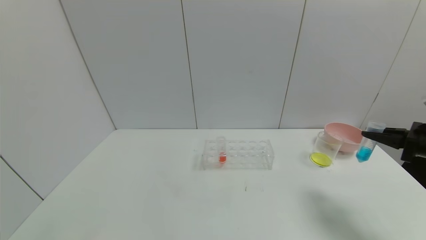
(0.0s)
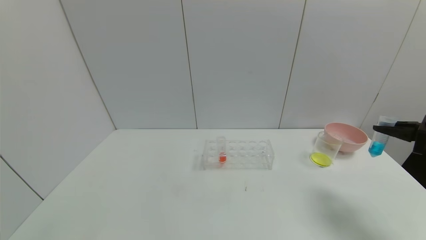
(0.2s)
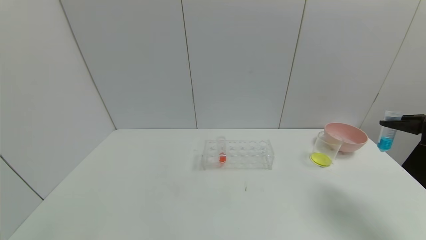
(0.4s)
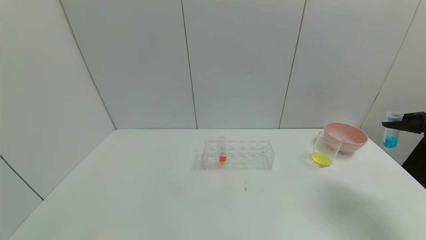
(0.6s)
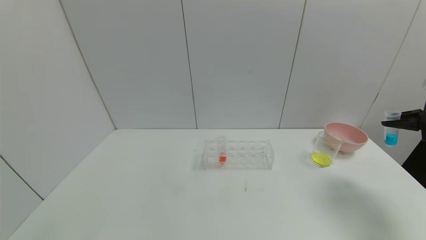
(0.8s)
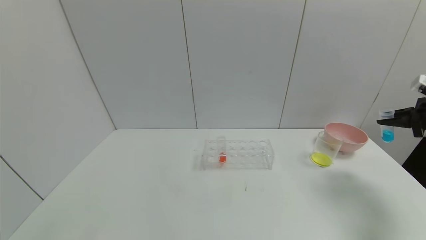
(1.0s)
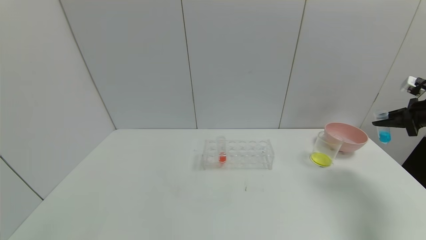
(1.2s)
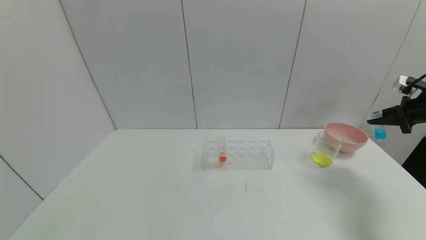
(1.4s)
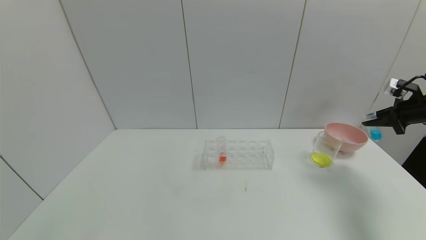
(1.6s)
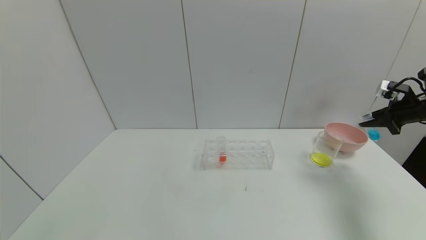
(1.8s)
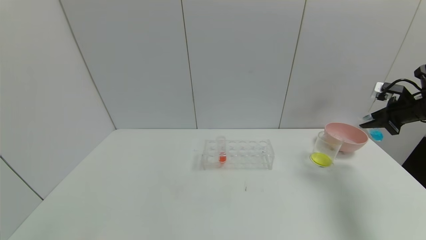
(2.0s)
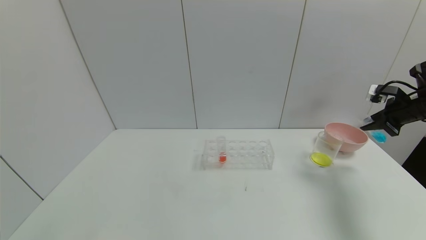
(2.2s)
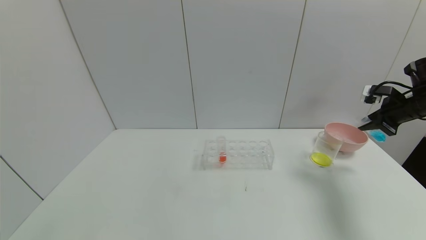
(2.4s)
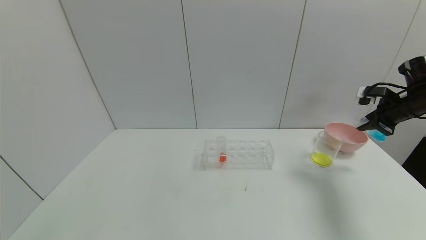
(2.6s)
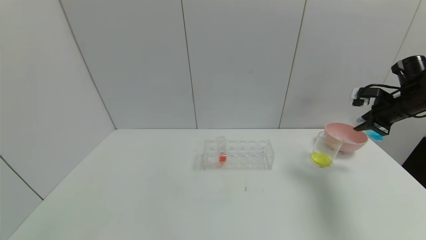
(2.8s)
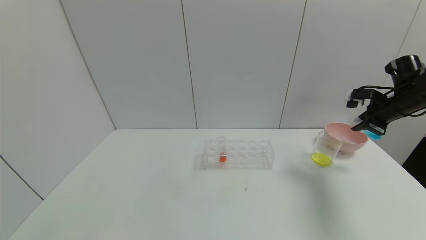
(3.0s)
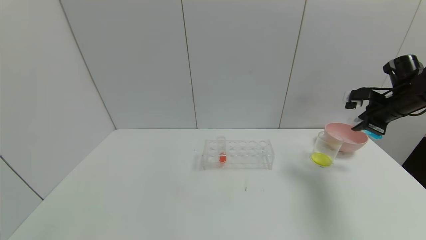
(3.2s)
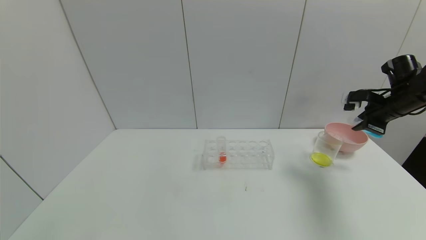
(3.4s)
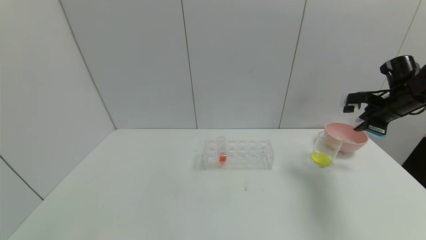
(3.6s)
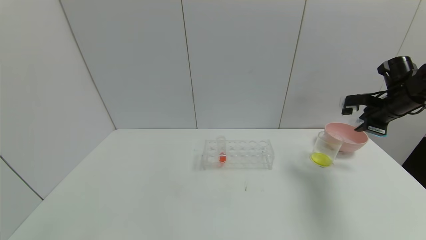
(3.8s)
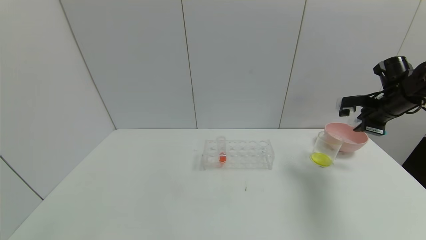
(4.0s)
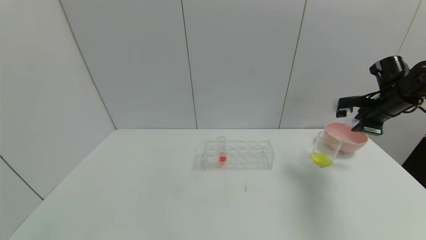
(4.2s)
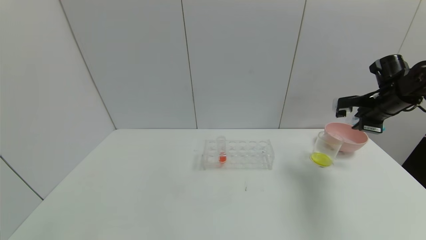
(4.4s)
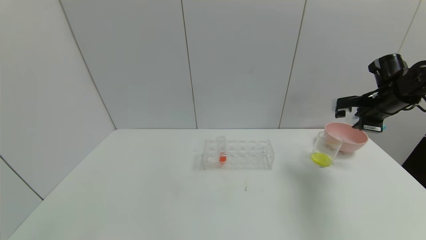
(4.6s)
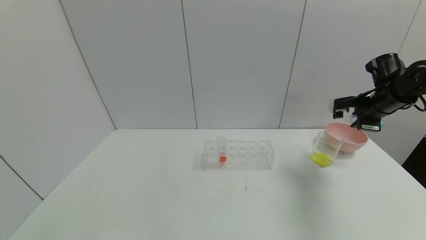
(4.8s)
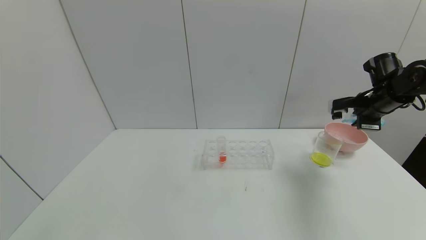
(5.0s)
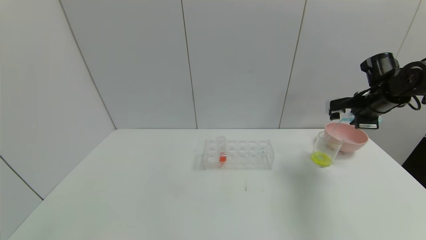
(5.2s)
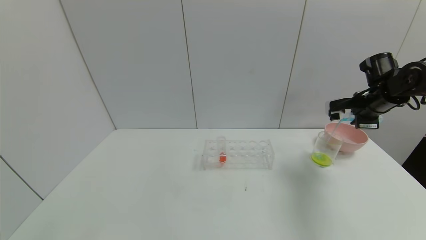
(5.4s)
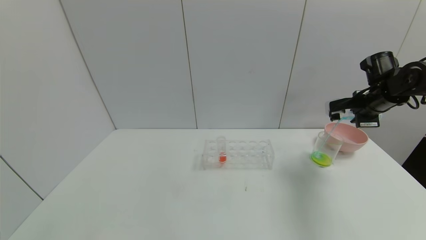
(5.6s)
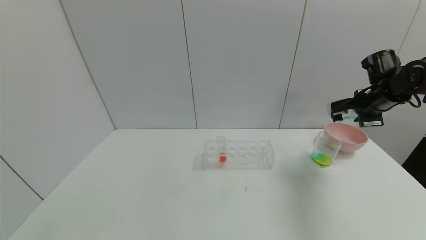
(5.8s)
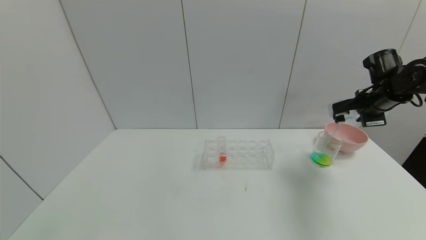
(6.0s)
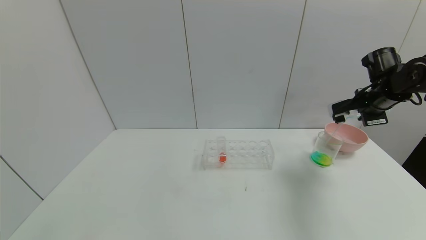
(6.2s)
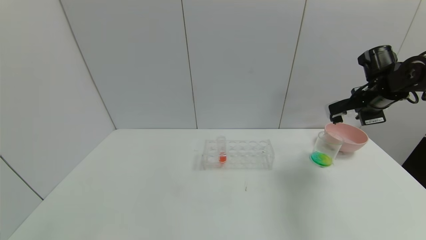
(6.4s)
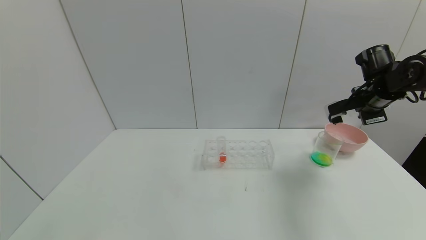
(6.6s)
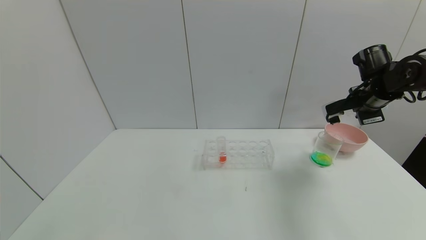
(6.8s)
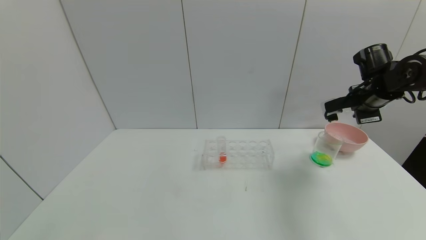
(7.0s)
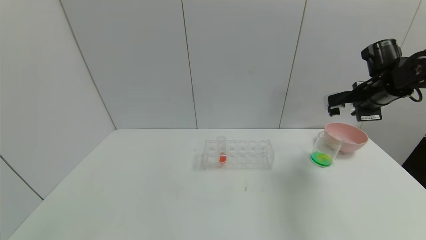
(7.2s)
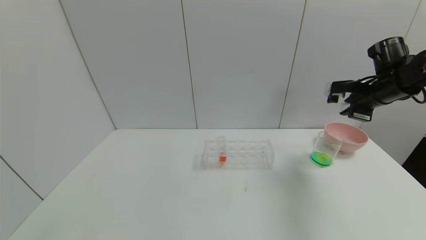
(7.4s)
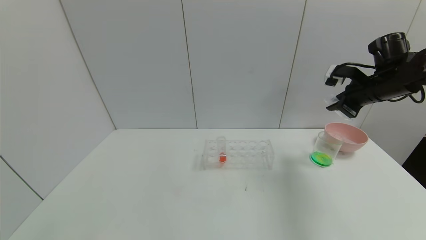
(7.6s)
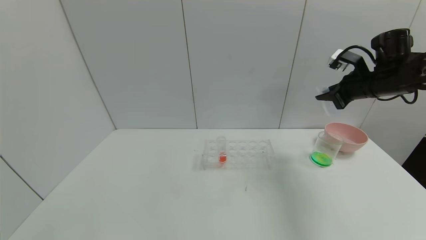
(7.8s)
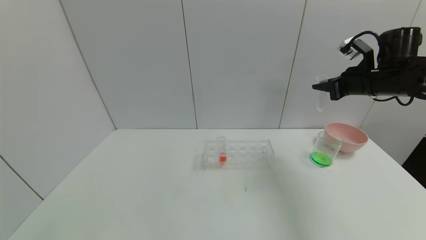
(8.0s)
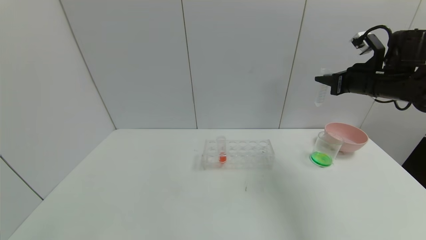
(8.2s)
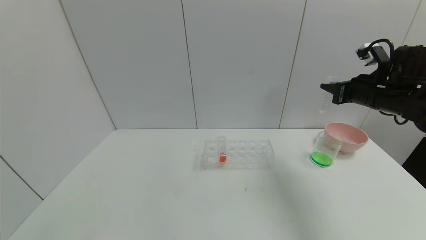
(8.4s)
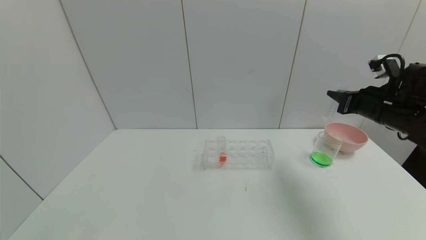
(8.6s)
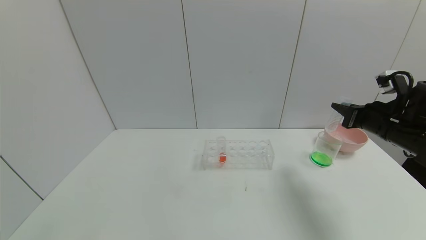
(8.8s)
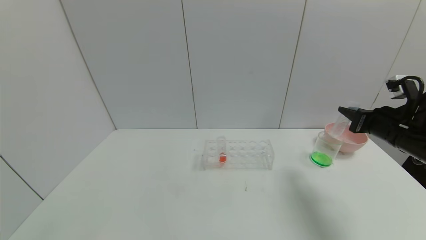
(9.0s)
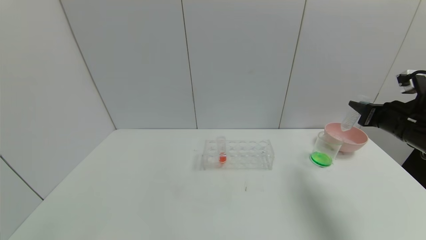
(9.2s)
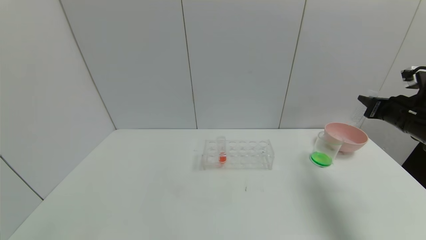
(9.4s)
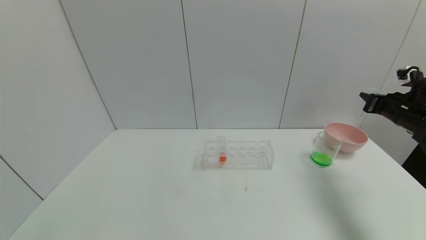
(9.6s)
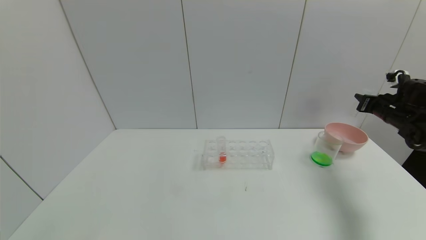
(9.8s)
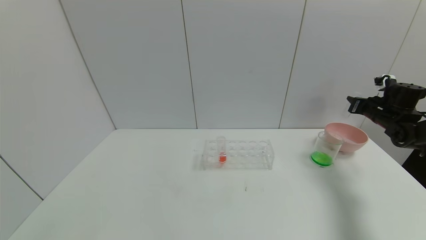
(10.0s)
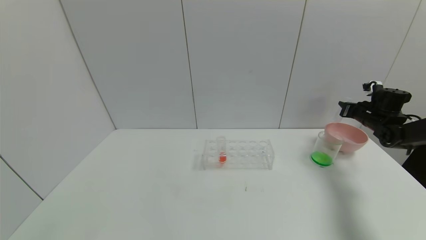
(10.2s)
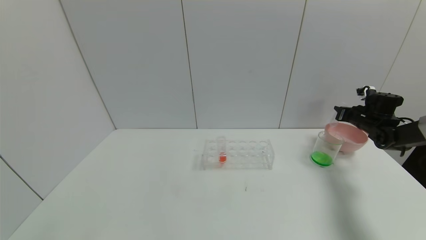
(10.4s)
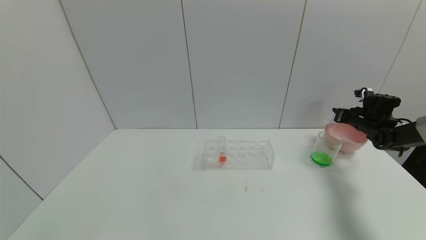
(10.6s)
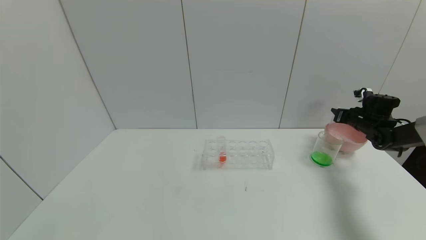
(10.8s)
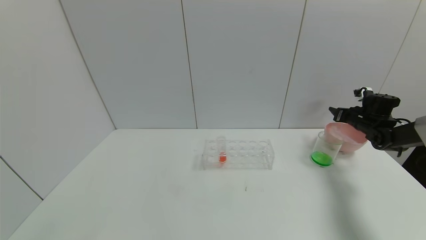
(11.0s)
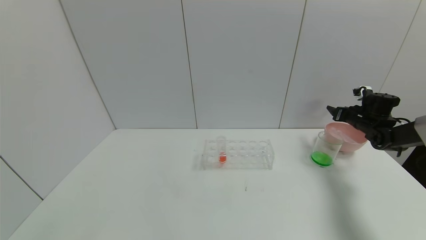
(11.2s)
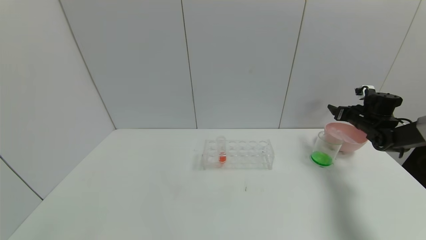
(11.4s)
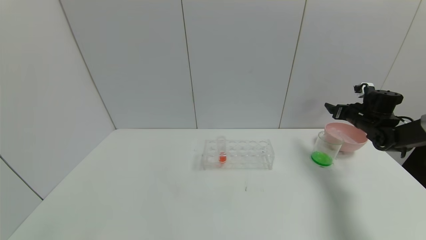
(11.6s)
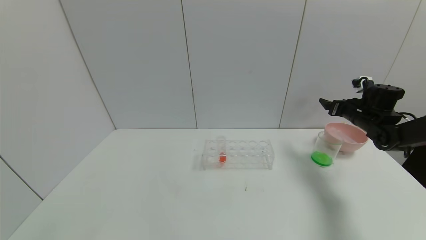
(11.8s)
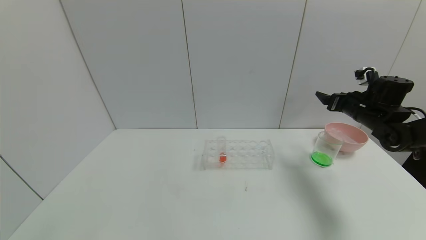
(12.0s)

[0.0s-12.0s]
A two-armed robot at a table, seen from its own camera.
Task of the whole recording: pick up the test tube with yellow pigment and the test tube with blue pigment by grippers and pour them into the beaker.
Step, 0.0s to 7.2s: Pour the blue reagent into the graduated cylinder with the right gripper.
Step, 7.4s to 11.2s: Place the test tube into the bowl with the right gripper.
0.0s to 1.6s: The right gripper travels forward and to the right by roughly 15 cm.
1.6s to 3.0s: The right gripper shifts about 10 cm to the left.
3.0s to 4.4s: The grippers make only small movements.
7.6s to 9.0s: The right gripper travels backward and downward by some 10 cm.
9.0s to 10.4s: The right gripper shifts approximately 20 cm forward, to the right and downward.
10.4s to 12.0s: The right gripper moves to the left, backward and upward, approximately 15 cm, and opens its fingers.

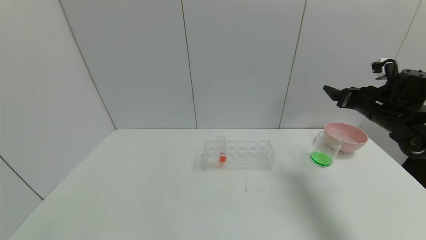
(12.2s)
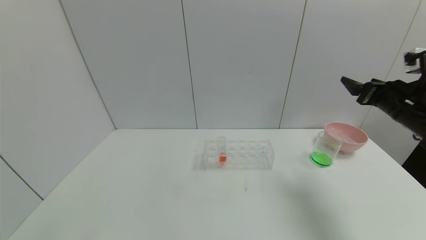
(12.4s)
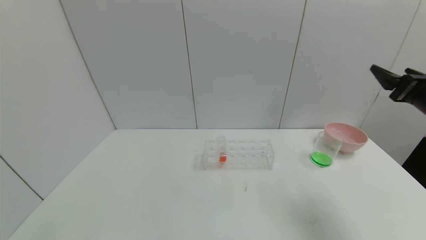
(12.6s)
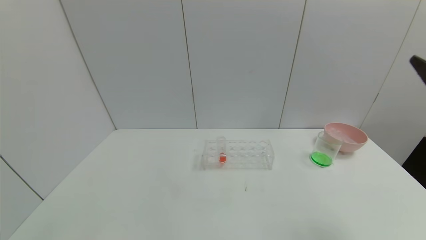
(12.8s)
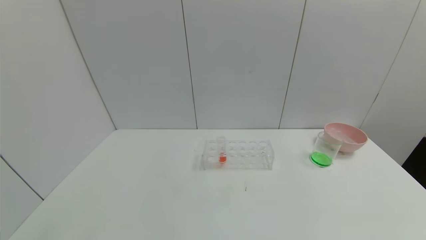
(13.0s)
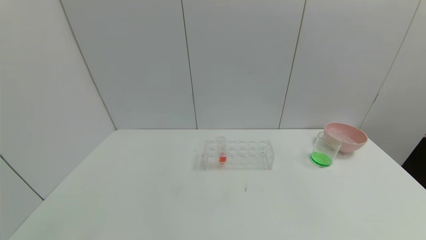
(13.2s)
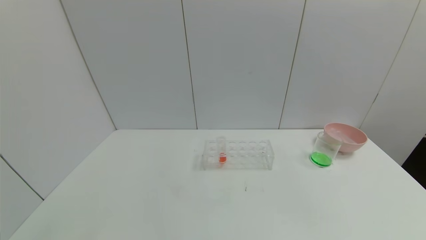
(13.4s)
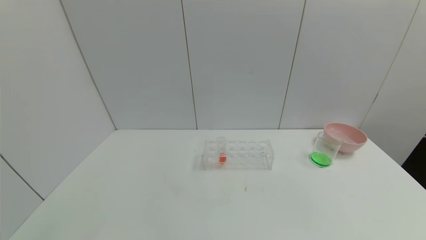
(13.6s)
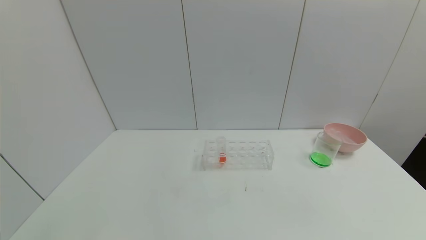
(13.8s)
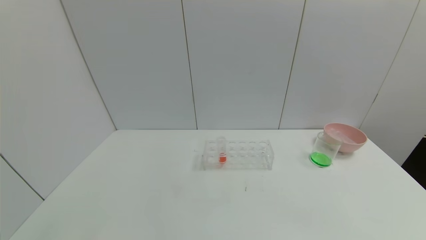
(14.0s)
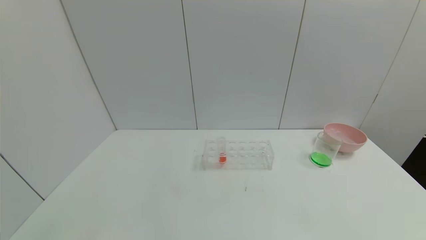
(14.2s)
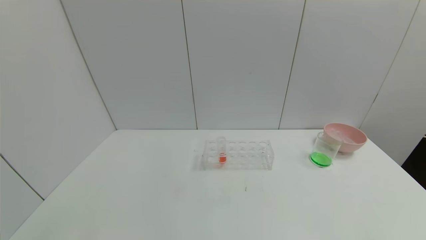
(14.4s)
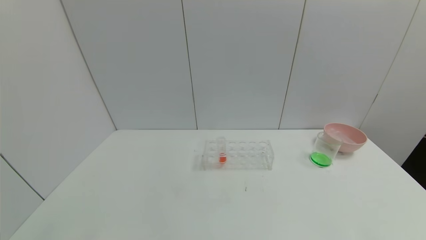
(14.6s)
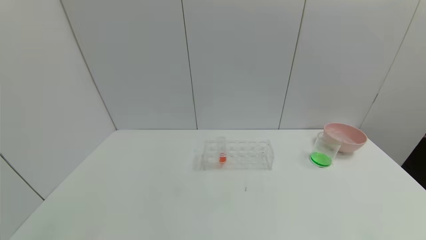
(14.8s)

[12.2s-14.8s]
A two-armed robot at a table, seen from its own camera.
Task of the whole recording: pick up the test tube with yellow pigment and the test tube with blue pigment by grippers and pour them into the beaker.
12.2s to 13.4s: The right gripper heads backward, covering roughly 40 cm.
